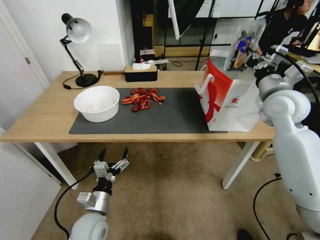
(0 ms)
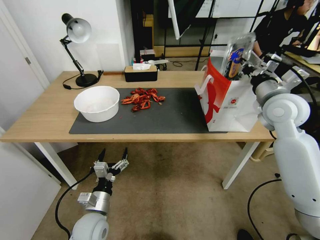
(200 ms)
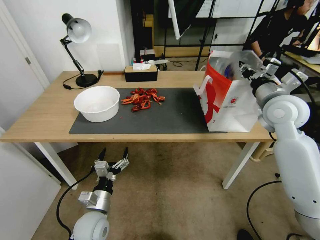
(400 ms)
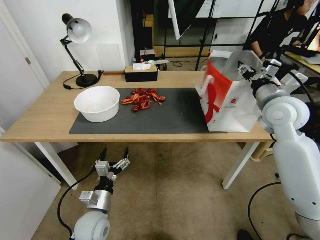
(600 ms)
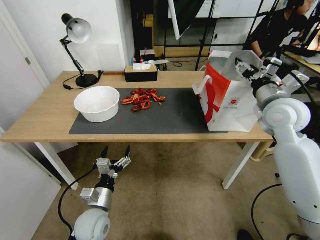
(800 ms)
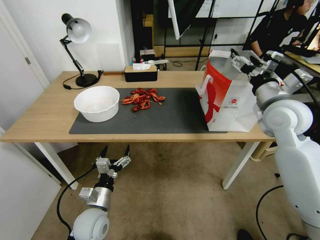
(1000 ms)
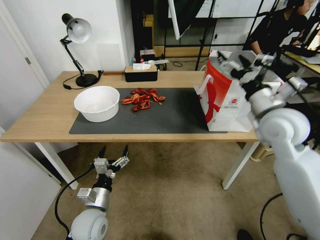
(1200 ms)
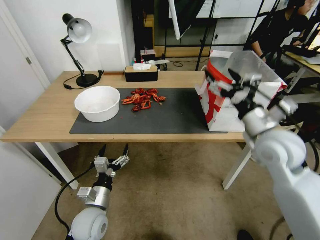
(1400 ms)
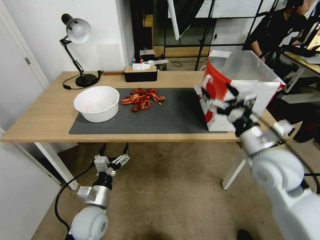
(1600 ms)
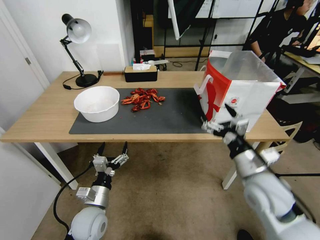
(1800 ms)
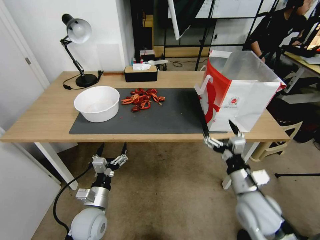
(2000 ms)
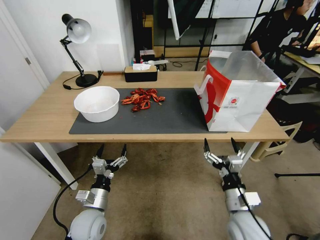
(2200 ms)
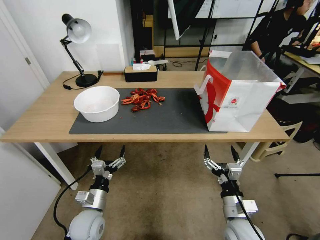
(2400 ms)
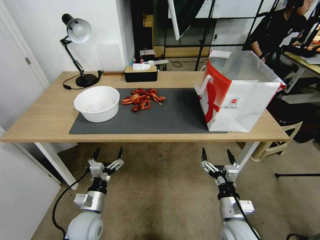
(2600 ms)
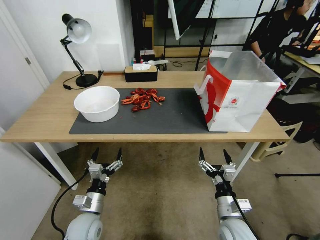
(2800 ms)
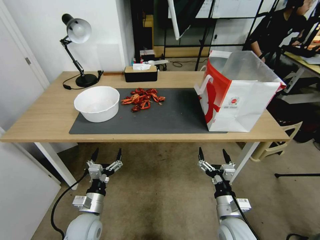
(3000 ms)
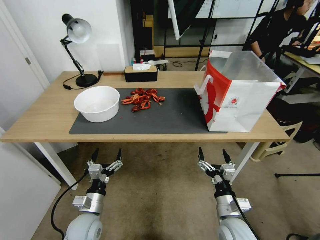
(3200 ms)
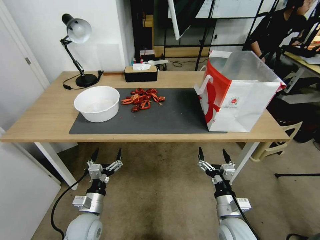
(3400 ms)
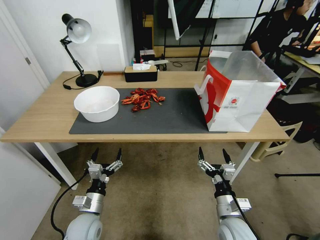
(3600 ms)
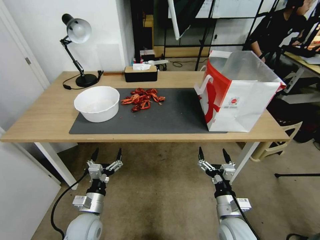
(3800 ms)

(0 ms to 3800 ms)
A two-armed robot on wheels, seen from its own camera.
Task of the whole recording: Close the takeout container lid, then place the container into the takeout bag.
0 ms - 1200 ms: The right gripper shifts about 5 cm backward, and opens up.
1200 ms - 2600 ms: The right gripper is displaced downward and backward by roughly 35 cm.
2600 ms - 3800 ms: Both grippers stay put.

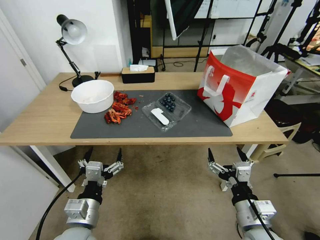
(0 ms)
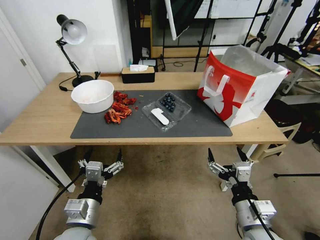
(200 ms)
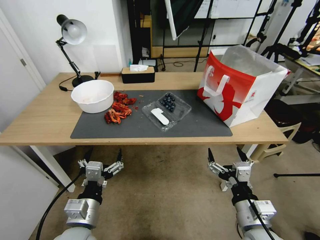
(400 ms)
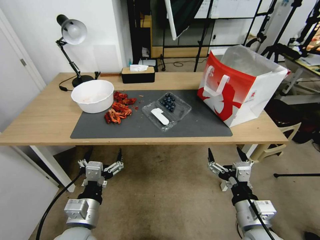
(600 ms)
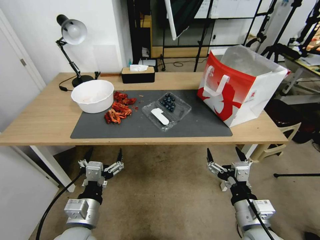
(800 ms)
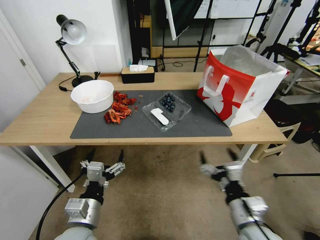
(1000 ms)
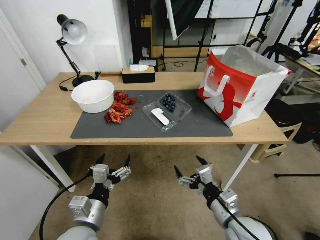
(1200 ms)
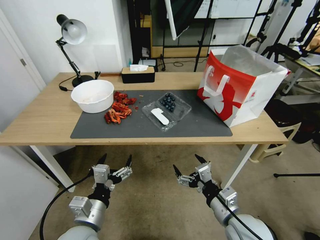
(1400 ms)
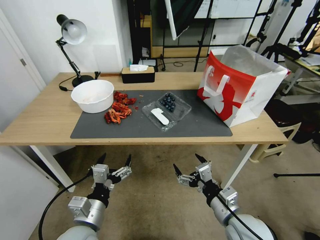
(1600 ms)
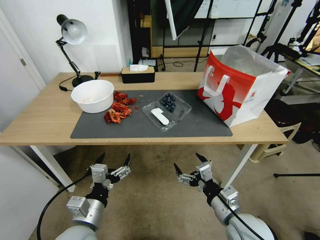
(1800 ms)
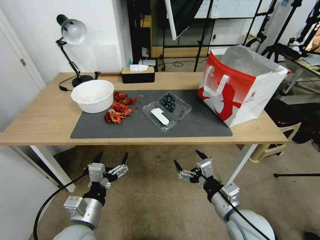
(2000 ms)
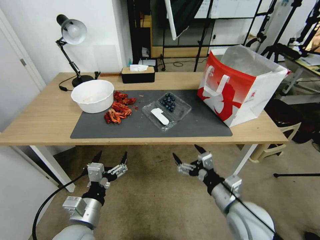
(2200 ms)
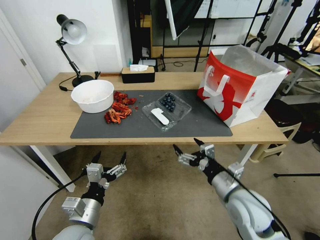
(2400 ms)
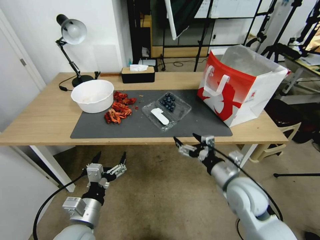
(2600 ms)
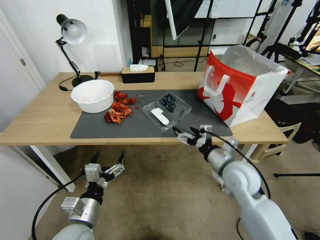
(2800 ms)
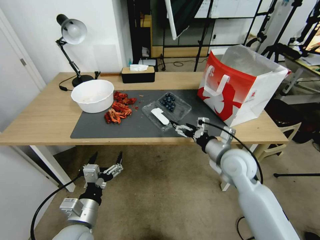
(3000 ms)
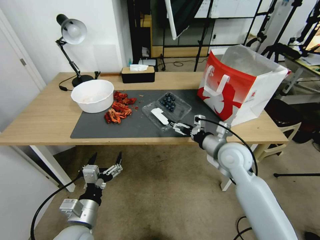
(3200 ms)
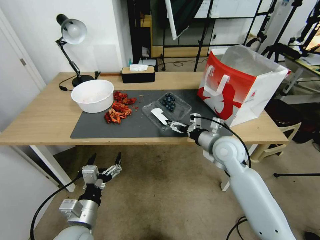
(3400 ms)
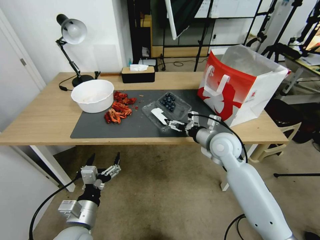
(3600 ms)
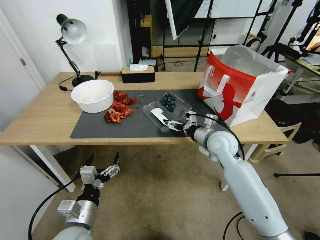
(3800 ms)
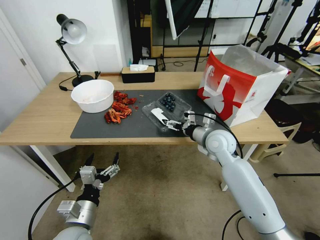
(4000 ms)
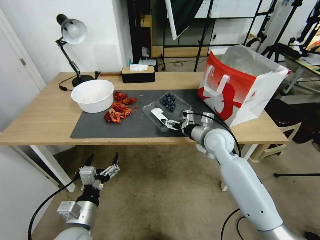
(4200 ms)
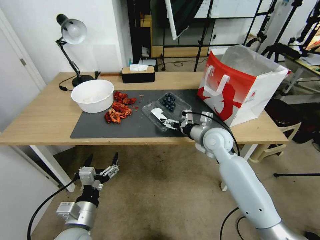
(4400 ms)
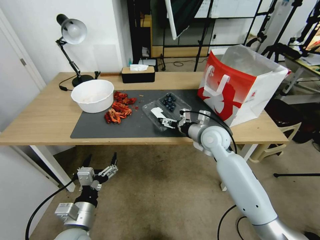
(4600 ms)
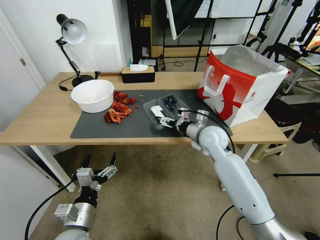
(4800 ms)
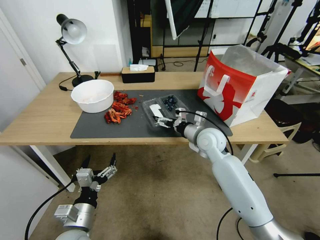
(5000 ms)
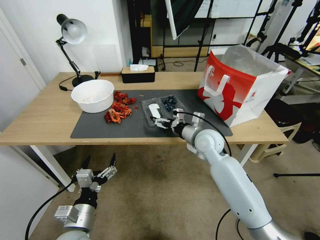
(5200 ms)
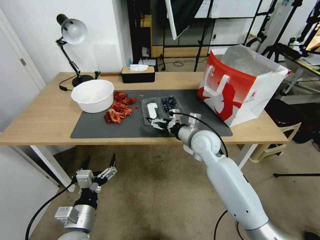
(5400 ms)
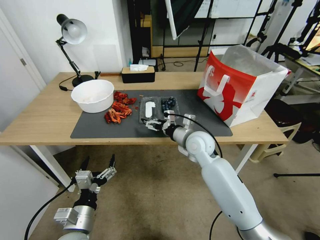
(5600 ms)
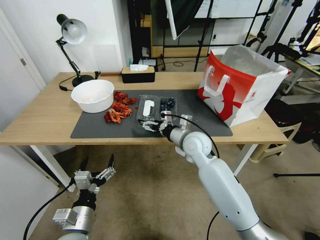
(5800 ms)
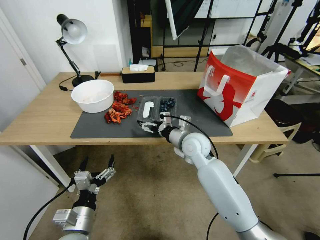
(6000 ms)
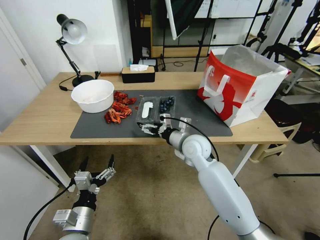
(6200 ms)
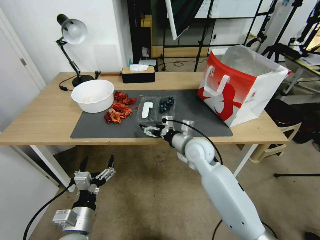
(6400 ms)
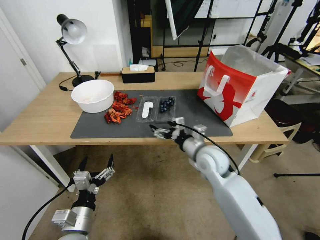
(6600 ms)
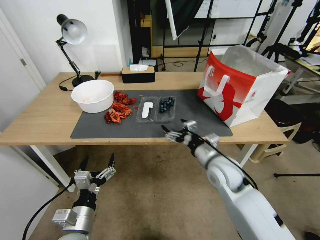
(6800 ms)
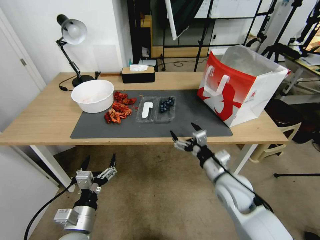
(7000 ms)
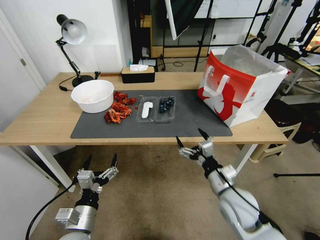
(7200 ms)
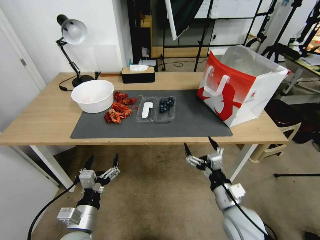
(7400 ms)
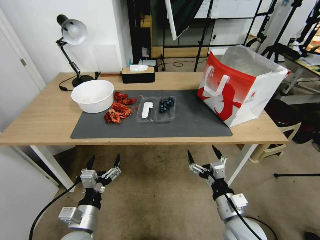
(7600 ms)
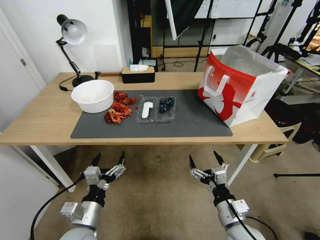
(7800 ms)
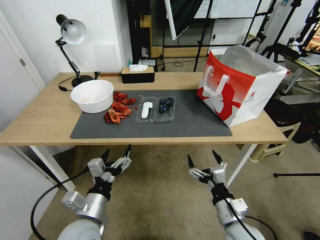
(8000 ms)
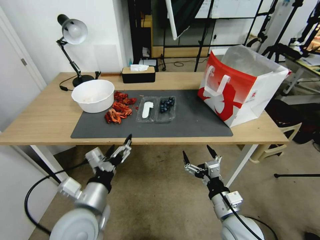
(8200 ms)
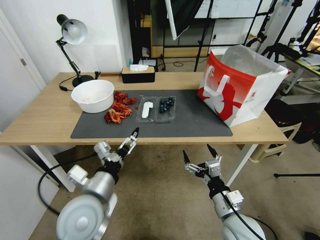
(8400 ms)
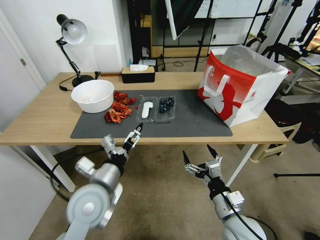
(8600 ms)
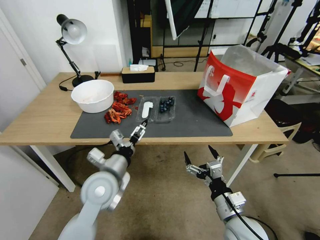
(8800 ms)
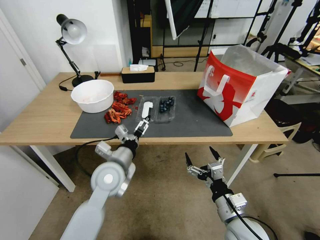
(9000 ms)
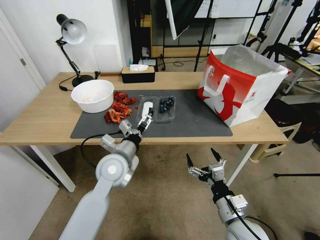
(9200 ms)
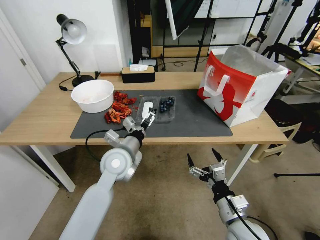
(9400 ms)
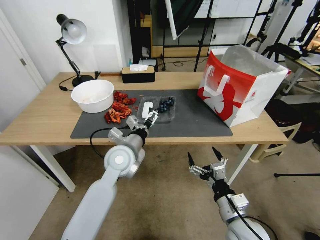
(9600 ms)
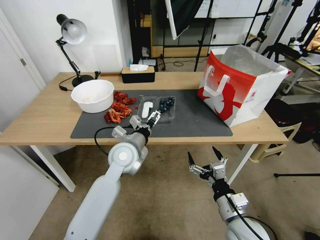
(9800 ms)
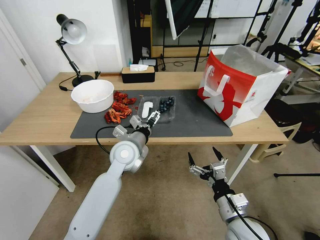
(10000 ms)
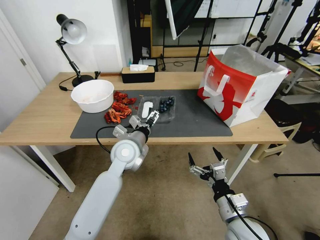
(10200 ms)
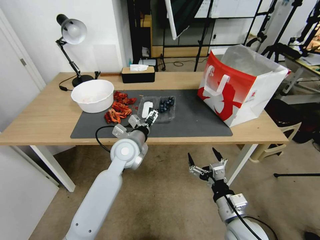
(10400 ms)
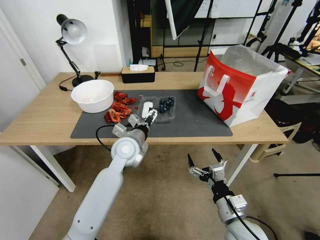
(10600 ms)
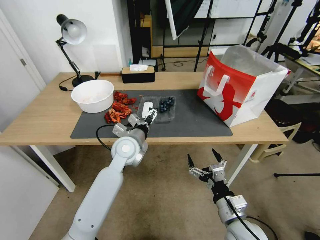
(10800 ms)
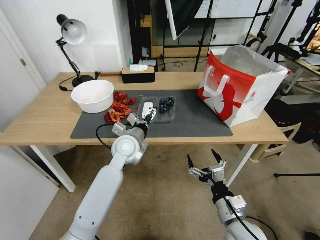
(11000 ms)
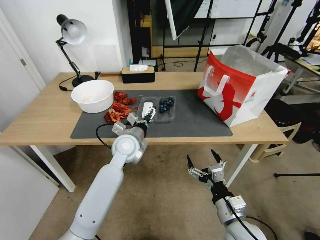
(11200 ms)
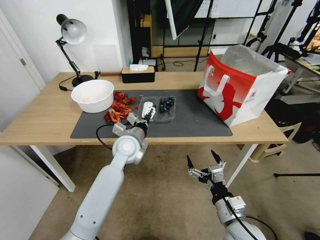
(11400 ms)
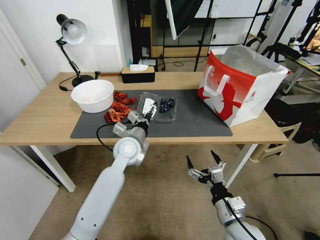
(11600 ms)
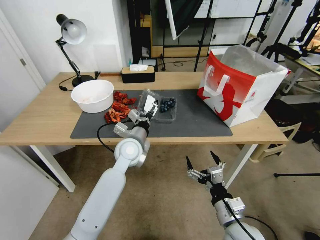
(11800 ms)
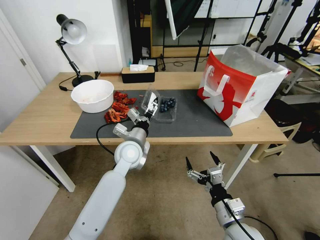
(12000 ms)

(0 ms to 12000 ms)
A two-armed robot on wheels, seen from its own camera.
Task of the whole recording: Close the takeout container lid, then place the container into the takeout bag.
1600 ms - 3000 ms: The right gripper shifts some 15 cm forward.
3000 ms - 4400 ms: The right gripper moves forward, some 10 cm.
4400 ms - 6000 ms: The right gripper travels to the left by approximately 5 cm.
6000 ms - 7600 ms: The right gripper heads backward and to the right, covering approximately 25 cm.
7600 ms - 9000 ms: The left gripper is displaced forward, upward and to the right by some 20 cm.
9000 ms - 10400 ms: The left gripper heads forward, covering approximately 10 cm.
10400 ms - 12000 ms: There are only small adjustments of the grippers.

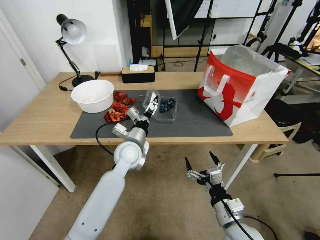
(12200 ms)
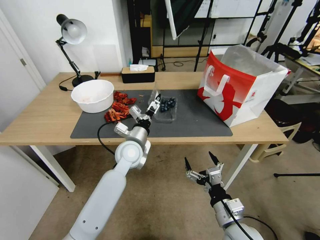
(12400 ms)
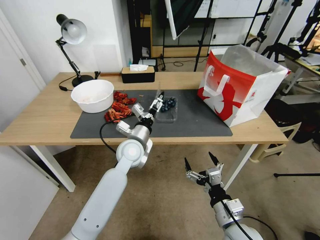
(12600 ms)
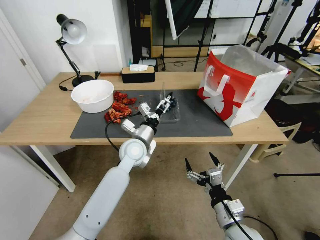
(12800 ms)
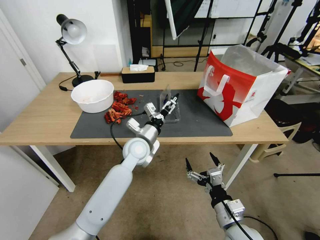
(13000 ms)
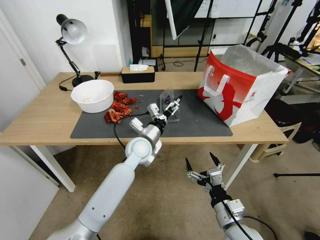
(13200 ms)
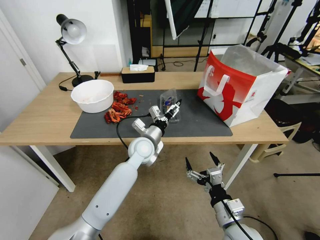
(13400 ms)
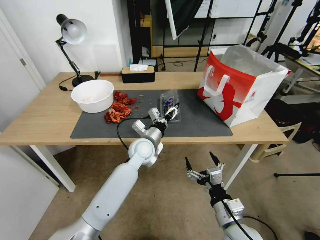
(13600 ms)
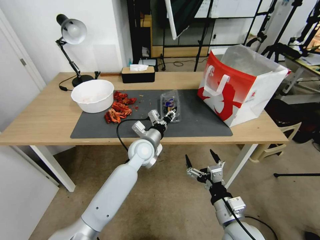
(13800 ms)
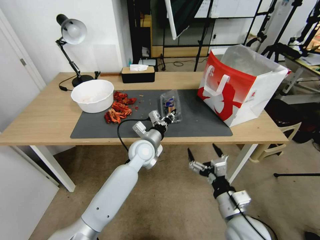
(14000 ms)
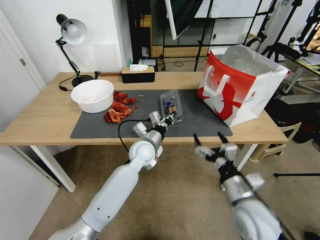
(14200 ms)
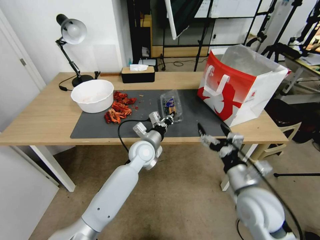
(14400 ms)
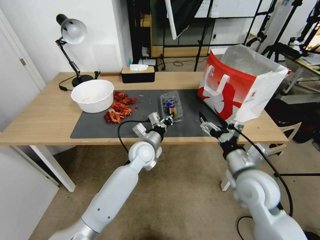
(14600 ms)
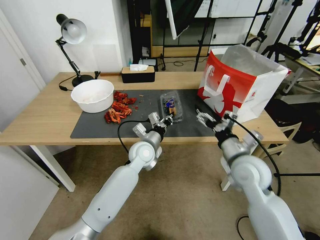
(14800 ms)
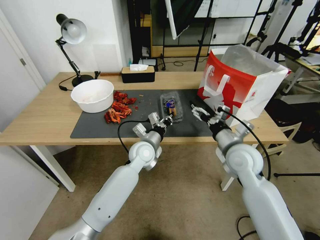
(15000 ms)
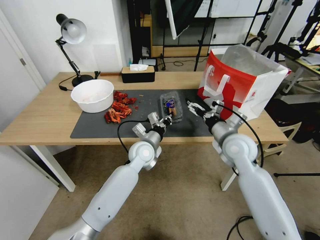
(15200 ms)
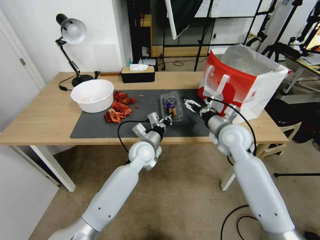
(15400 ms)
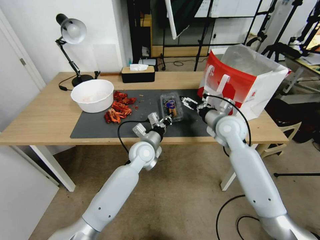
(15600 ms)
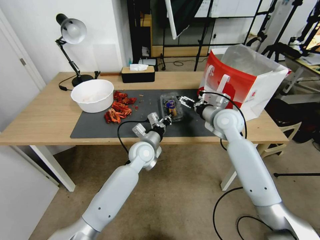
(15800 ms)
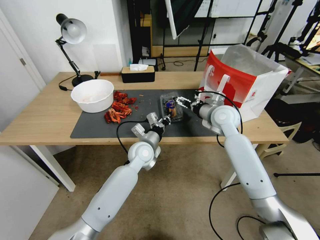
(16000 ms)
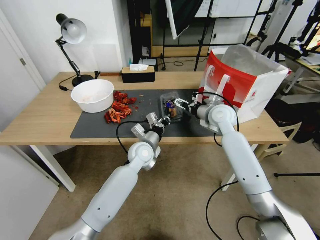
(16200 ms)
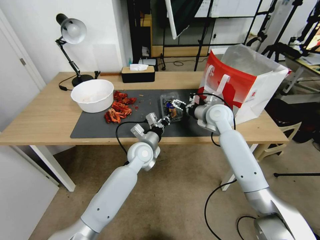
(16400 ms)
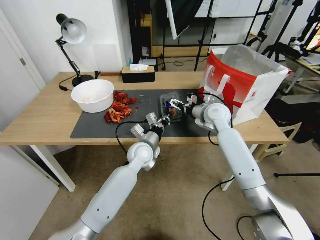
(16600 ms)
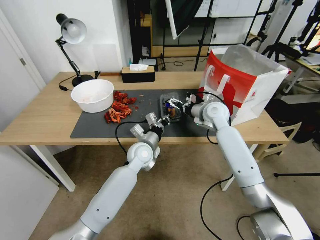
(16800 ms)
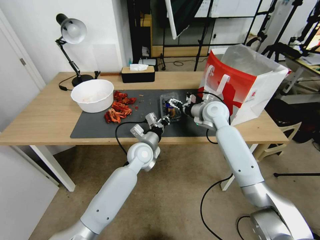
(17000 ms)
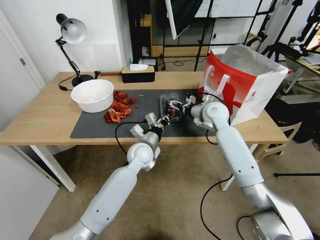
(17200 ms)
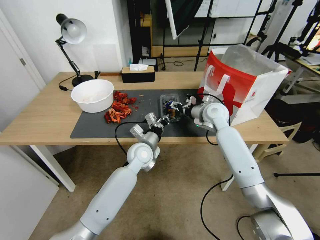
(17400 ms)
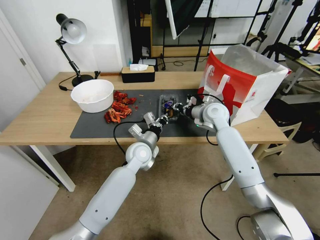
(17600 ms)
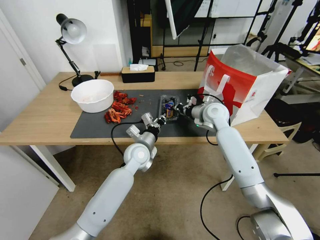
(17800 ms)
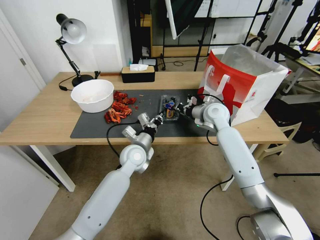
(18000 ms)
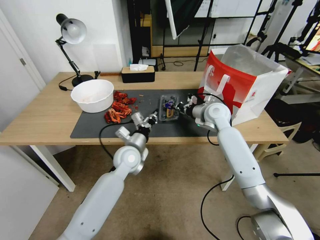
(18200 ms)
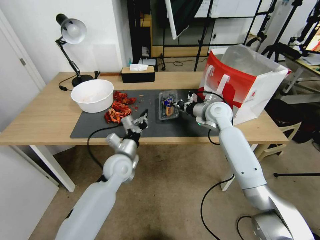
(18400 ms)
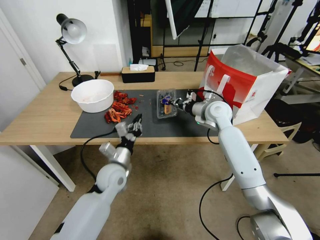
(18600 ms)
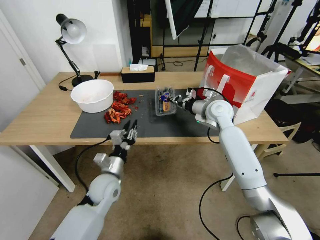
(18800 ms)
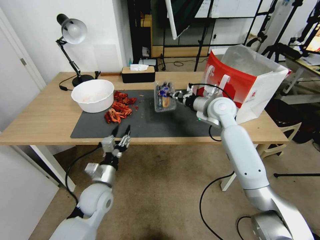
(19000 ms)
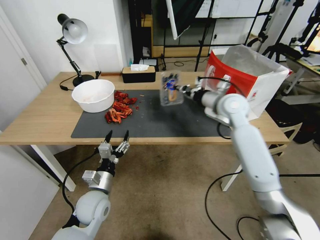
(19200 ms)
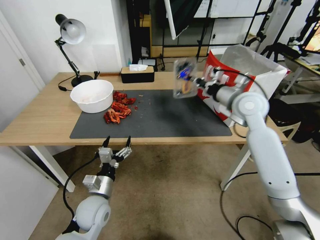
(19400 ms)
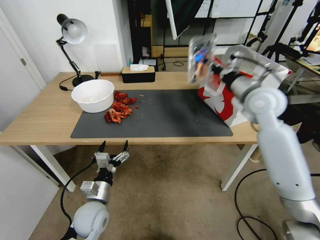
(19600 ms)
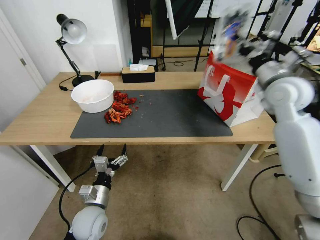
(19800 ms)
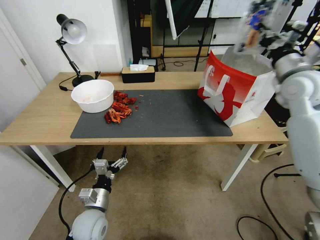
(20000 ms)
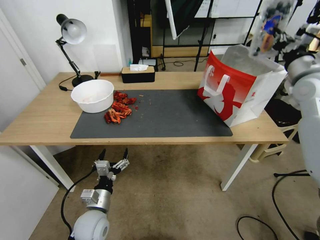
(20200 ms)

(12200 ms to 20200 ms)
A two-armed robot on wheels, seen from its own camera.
Task of the whole recording: Close the takeout container lid, then place the container into the takeout bag.
12200 ms - 13800 ms: The left gripper moves roughly 5 cm, and closes its fingers.
13800 ms - 15400 ms: The right gripper goes some 30 cm forward and upward. Meanwhile the left gripper closes up.
15400 ms - 17000 ms: The right gripper moves forward, about 10 cm.
17000 ms - 18600 ms: The left gripper heads to the left and backward, covering approximately 10 cm. The right gripper closes its fingers.
18600 ms - 20200 ms: The right gripper heads to the right and upward, covering about 25 cm; the left gripper goes approximately 15 cm backward, downward and to the left, and opens up.
